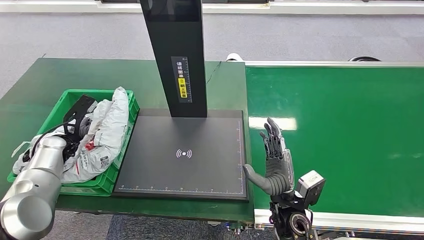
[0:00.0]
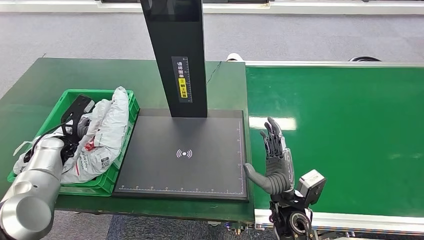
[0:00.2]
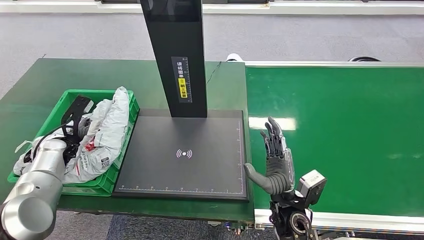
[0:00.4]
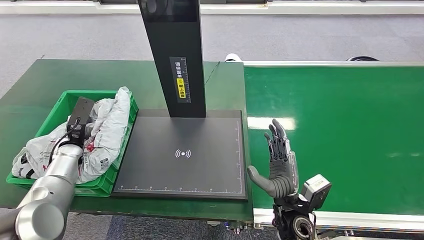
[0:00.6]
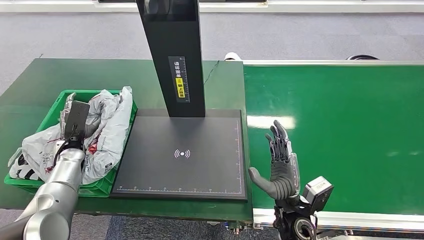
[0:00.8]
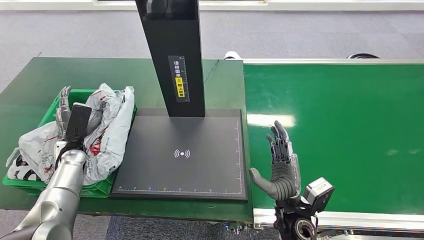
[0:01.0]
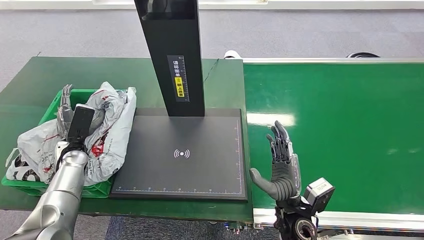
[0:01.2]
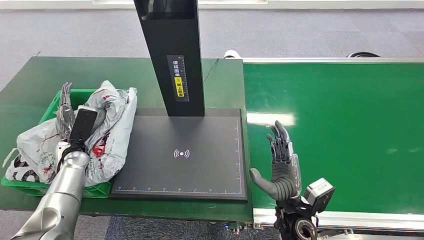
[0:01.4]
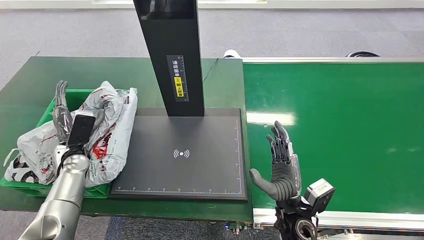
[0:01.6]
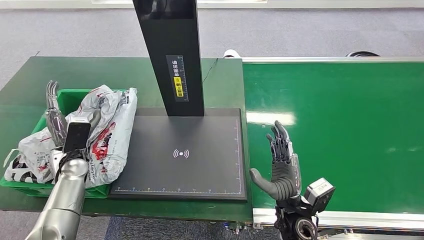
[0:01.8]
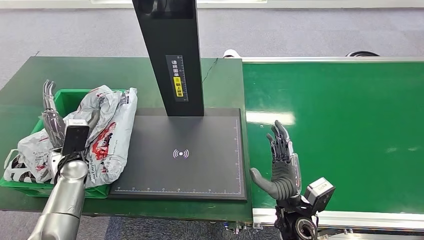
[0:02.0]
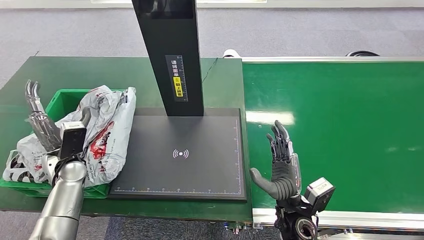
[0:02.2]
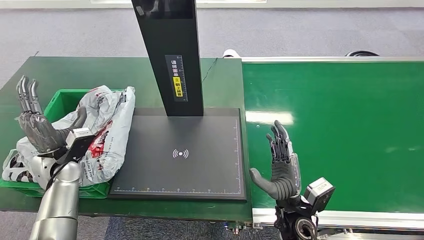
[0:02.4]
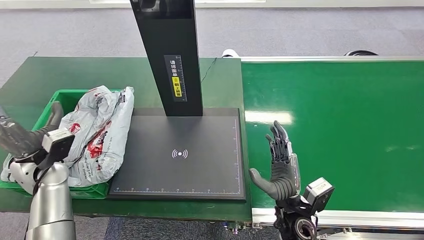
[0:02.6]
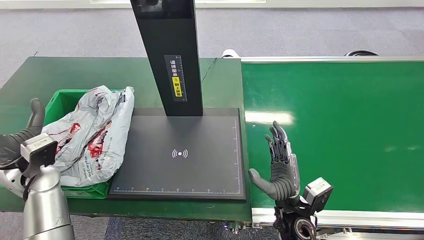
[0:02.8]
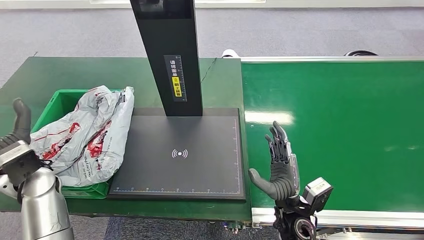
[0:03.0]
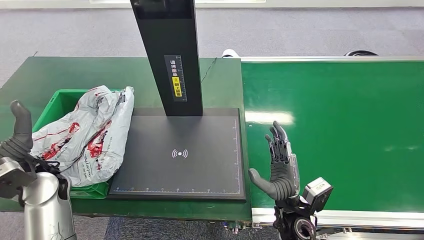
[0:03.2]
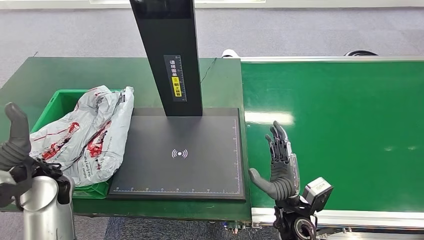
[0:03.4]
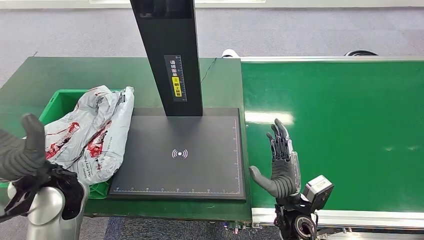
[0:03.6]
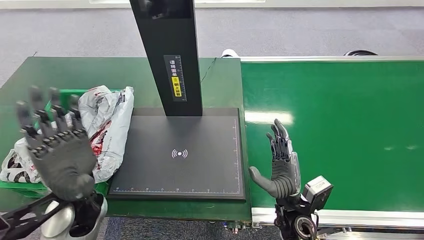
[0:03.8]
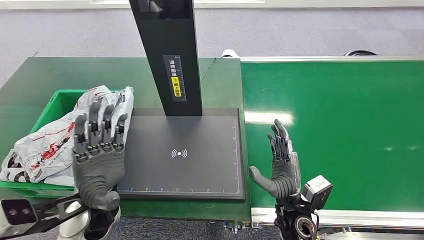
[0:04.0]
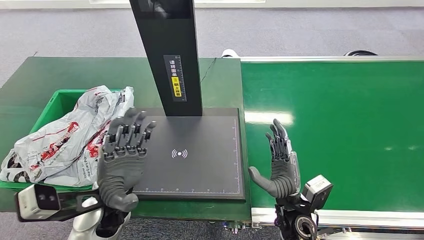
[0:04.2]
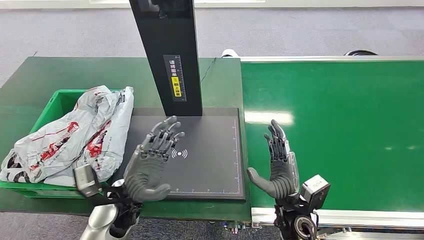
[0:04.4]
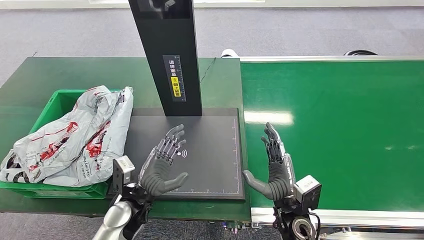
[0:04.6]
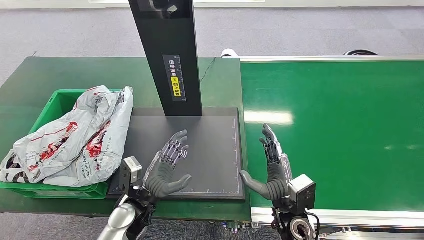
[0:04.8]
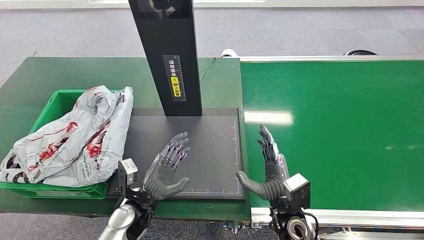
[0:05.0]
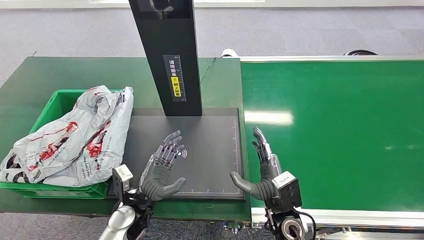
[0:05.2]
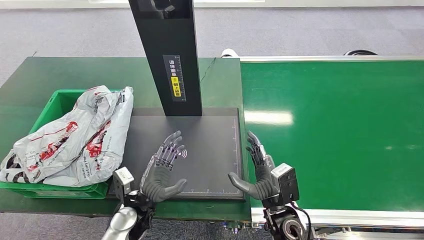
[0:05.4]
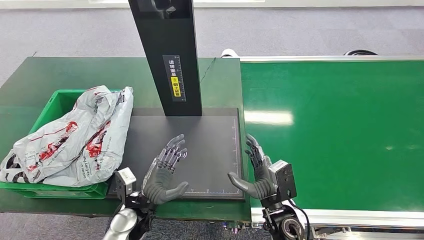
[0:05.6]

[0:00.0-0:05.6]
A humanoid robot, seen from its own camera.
Step, 0:00.0 to 0:05.4: Place the package into the parcel locker.
0:01.4 to 0:02.8: The left hand is displaced upward and backward by about 10 cm.
0:02.8 to 0:04.2: The left hand shifts approximately 20 cm to the right.
0:04.2 to 0:05.6: The left hand heads downward, covering roughly 10 cm.
